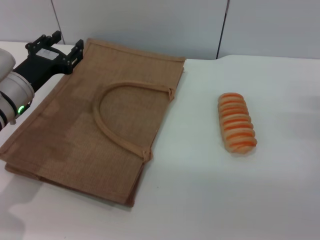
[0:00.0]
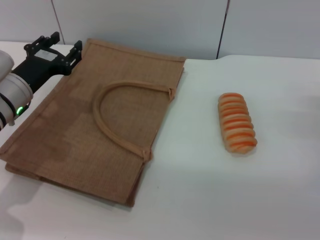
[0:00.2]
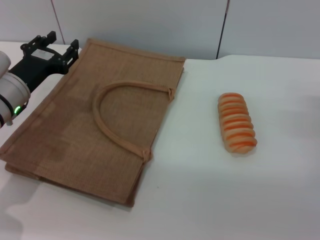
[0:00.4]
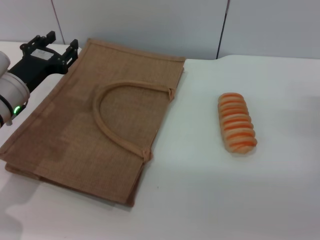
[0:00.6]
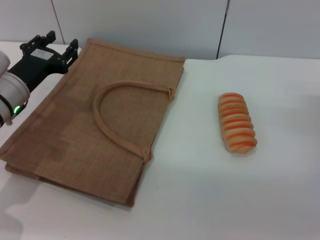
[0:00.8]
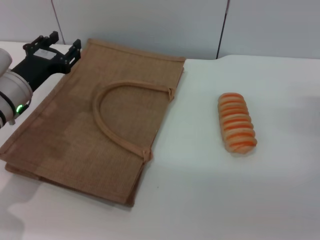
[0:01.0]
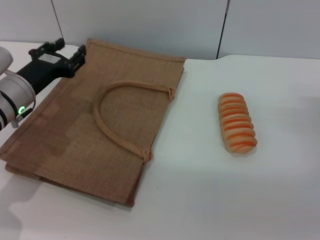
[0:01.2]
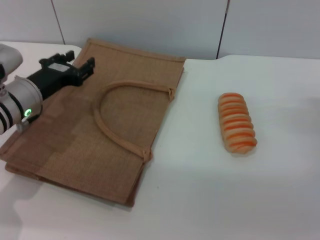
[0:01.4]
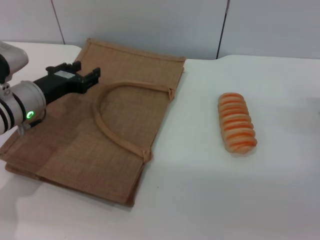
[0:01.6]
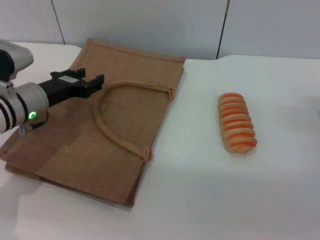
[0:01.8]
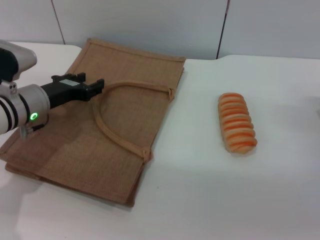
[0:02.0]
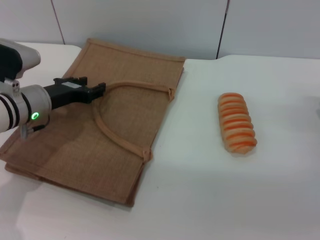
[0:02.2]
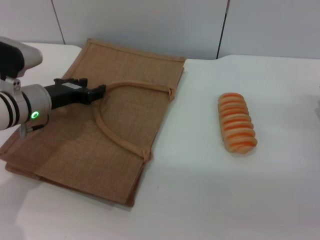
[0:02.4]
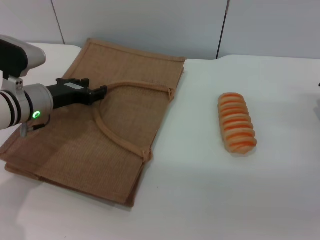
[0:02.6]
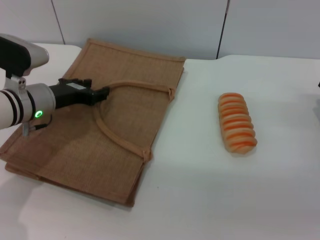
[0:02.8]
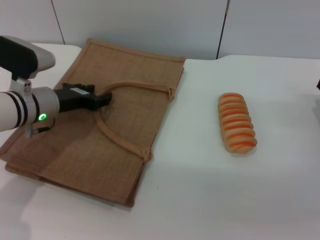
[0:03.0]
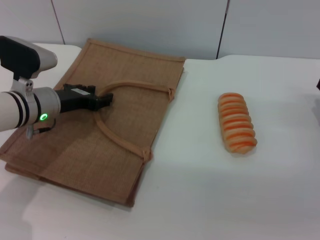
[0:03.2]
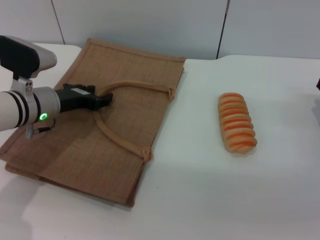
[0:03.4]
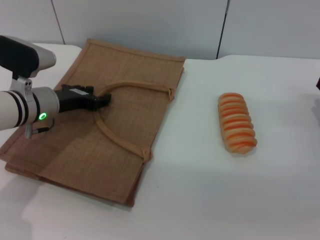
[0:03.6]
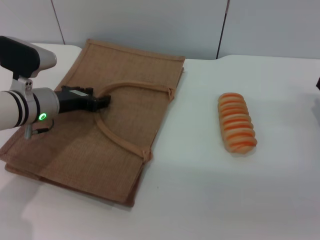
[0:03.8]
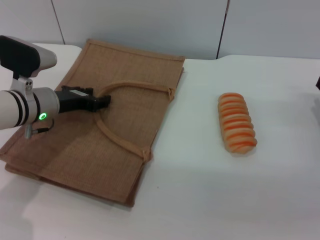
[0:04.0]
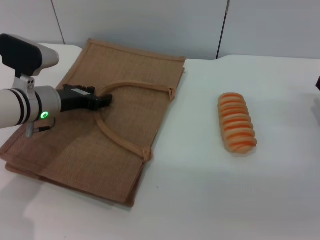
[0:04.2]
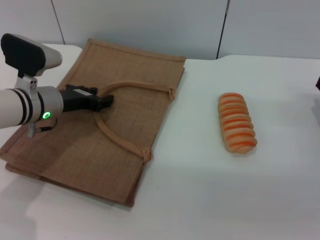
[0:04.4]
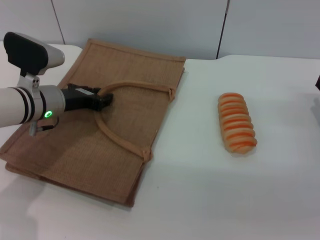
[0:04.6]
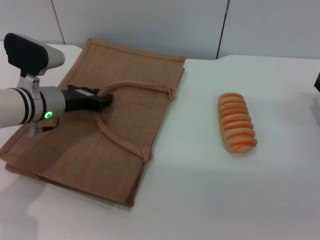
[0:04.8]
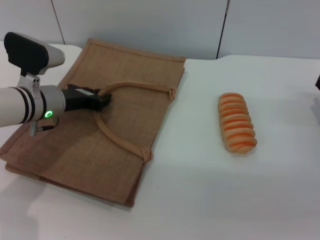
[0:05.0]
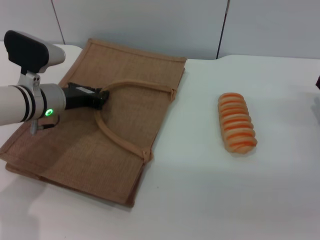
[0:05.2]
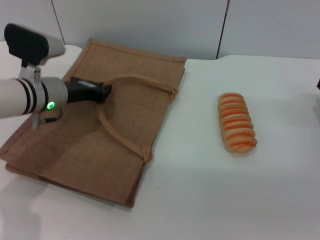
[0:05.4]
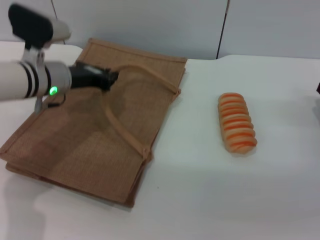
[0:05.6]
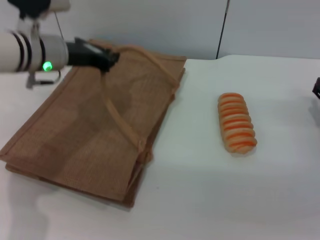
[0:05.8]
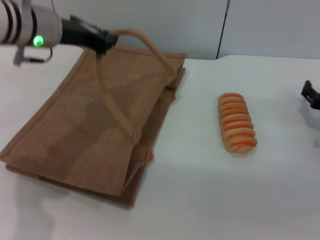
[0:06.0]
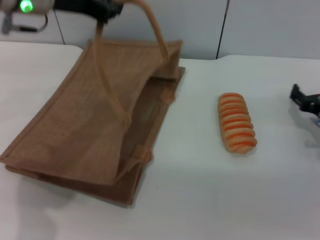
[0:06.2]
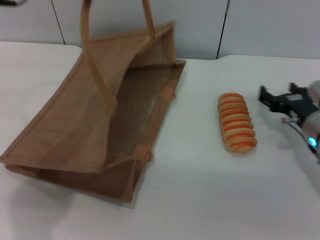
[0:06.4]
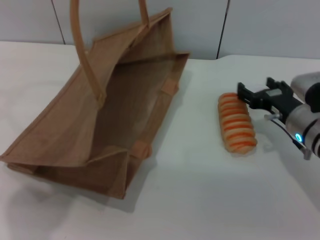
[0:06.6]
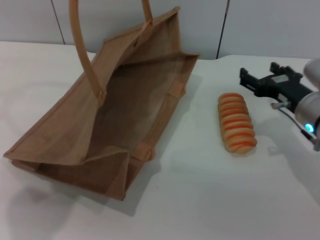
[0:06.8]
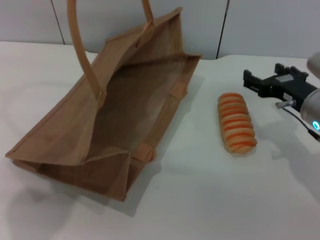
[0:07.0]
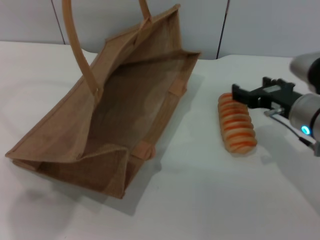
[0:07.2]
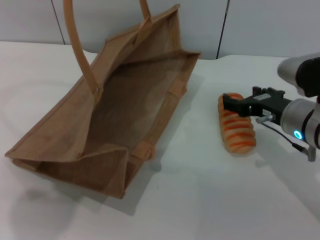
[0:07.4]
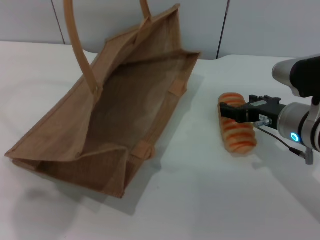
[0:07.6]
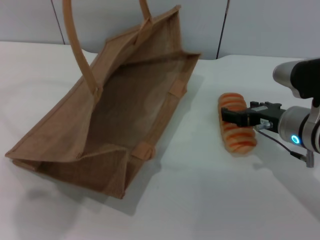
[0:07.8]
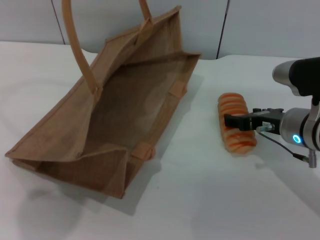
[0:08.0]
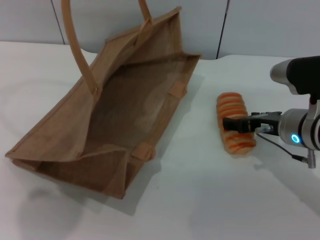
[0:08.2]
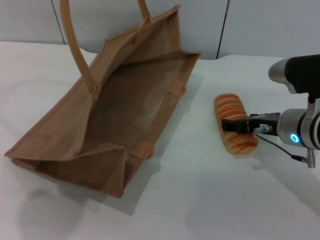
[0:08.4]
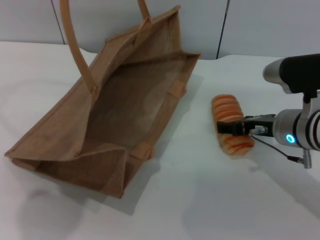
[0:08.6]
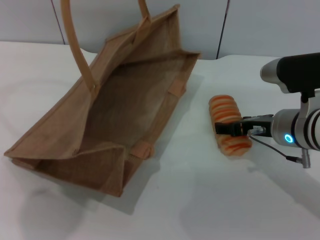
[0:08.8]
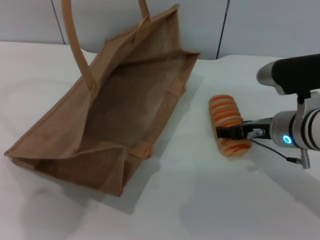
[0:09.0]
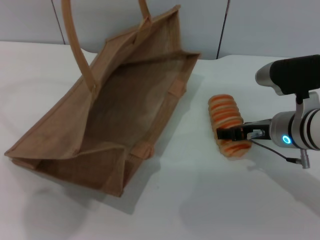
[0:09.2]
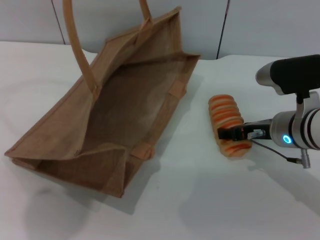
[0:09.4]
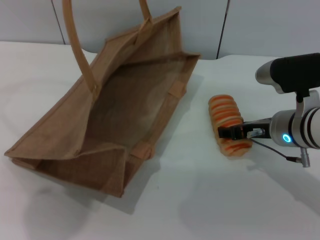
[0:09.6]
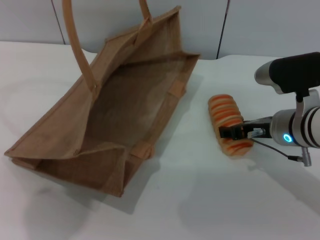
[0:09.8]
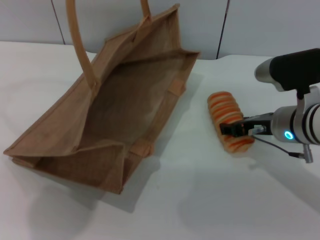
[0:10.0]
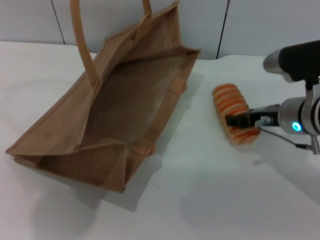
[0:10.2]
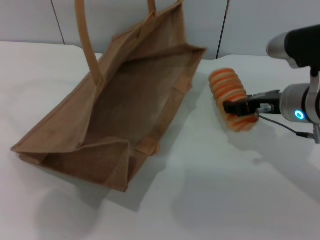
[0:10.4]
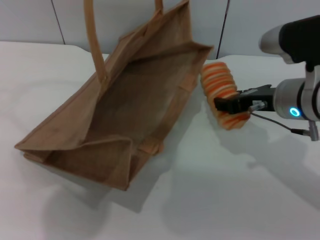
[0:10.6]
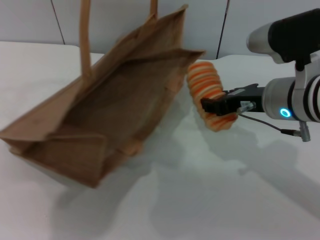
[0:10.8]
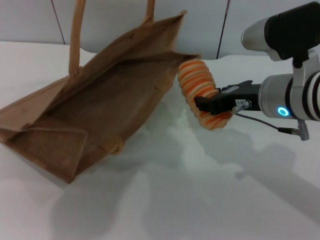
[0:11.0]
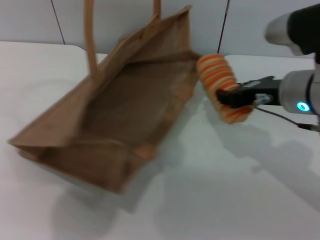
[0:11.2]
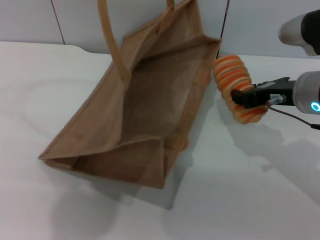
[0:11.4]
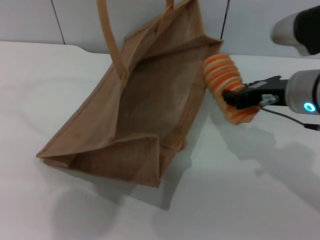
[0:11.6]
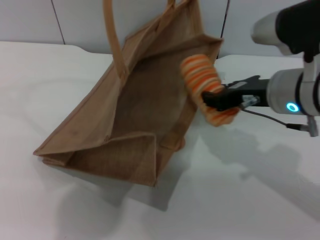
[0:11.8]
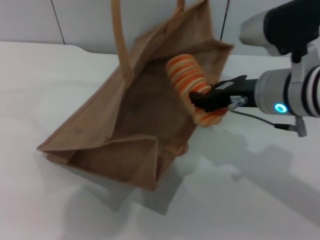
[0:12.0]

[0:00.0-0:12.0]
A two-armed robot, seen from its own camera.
Task of the whole recording: pick up the bread from the table and place it in the brown handbag.
Step, 0:00.0 to 0:05.4: Lift the woven bag with the left gripper to open it.
Step, 0:05.6 to 0:11.2: Pick up the bread with the right gripper.
0:00.0 to 0:01.6: The grippers make only small movements.
0:01.6 to 0:03.0: There are only small adjustments of the grippers.
0:03.0 to 0:04.4: Neither gripper changes place.
0:04.4 to 0:06.0: The left gripper shifts roughly 15 cm upward, and closes its fingers.
0:06.0 to 0:07.6: The right gripper travels to the left and upward by some 15 cm. The left gripper goes some 15 cm upward.
0:07.6 to 0:09.0: The grippers move only a little.
0:09.0 to 0:10.4: The right gripper closes its fingers.
0:10.4 to 0:12.0: The right gripper shifts by about 5 cm, and closes up.

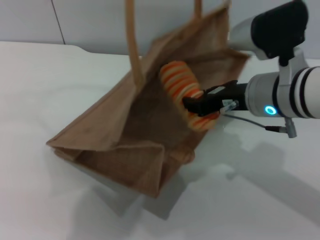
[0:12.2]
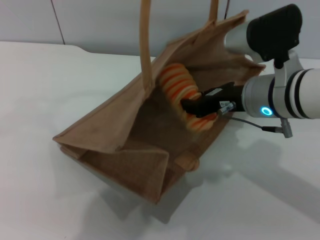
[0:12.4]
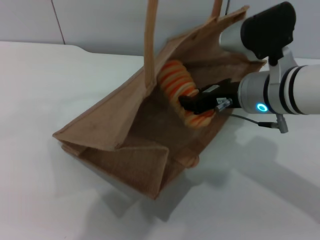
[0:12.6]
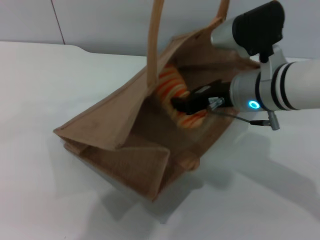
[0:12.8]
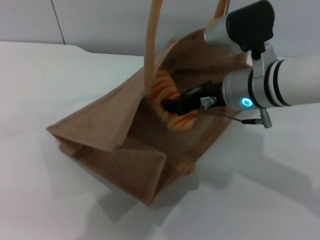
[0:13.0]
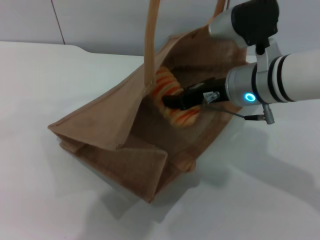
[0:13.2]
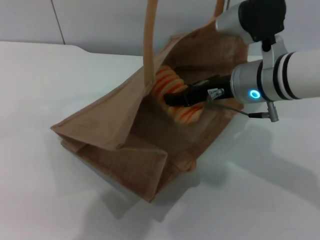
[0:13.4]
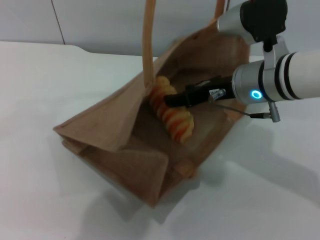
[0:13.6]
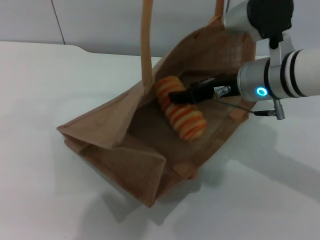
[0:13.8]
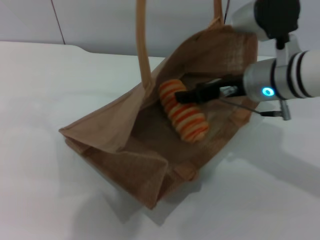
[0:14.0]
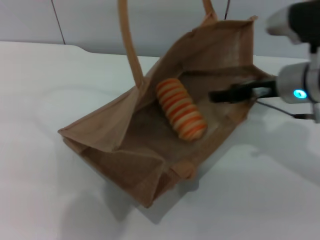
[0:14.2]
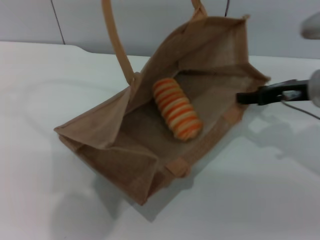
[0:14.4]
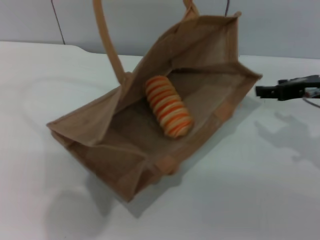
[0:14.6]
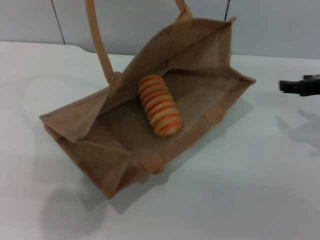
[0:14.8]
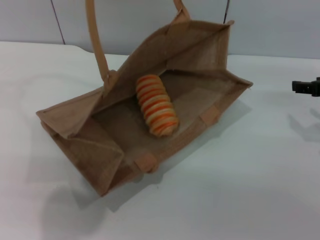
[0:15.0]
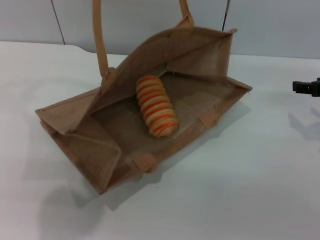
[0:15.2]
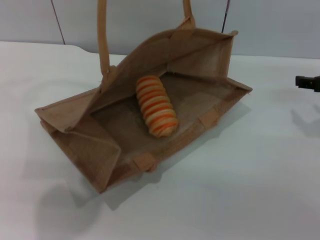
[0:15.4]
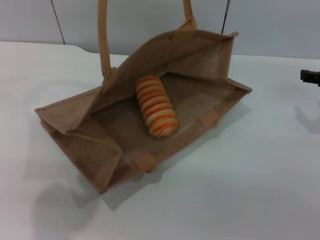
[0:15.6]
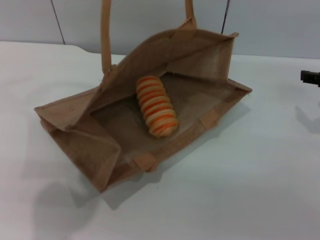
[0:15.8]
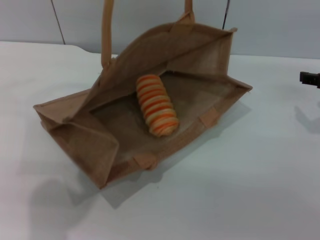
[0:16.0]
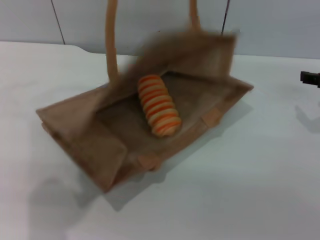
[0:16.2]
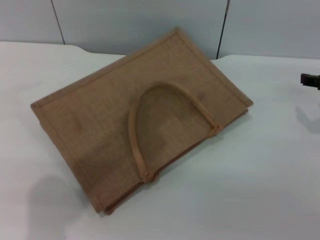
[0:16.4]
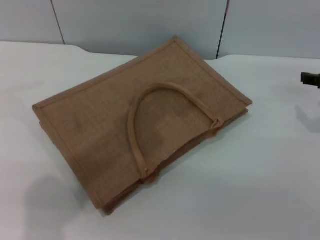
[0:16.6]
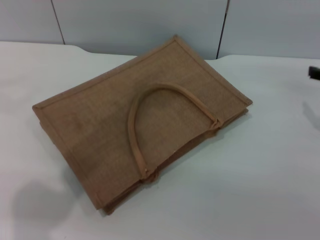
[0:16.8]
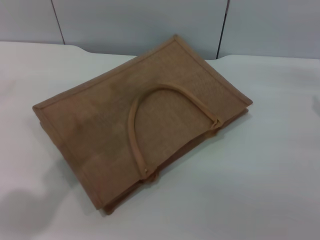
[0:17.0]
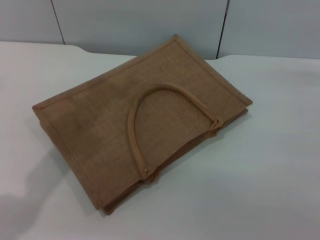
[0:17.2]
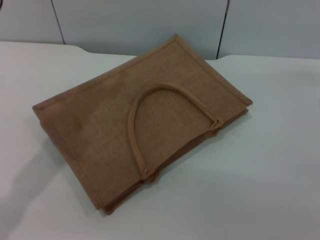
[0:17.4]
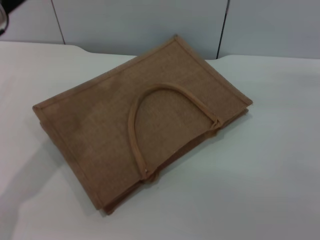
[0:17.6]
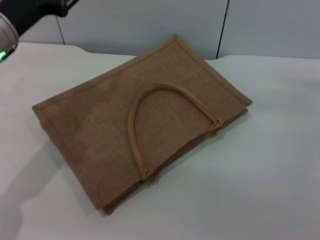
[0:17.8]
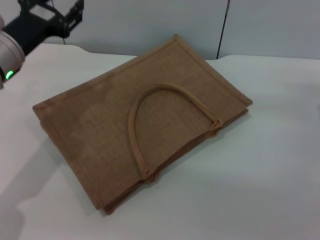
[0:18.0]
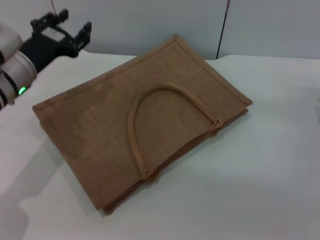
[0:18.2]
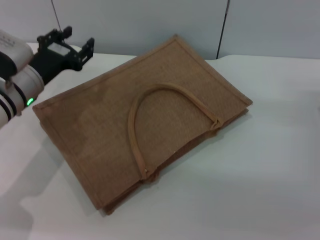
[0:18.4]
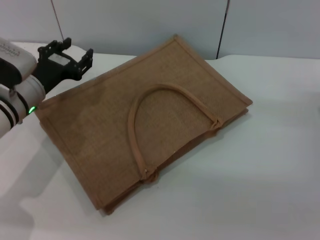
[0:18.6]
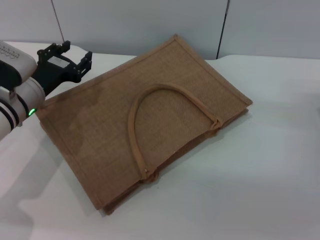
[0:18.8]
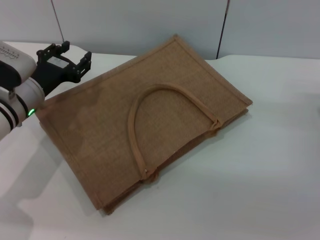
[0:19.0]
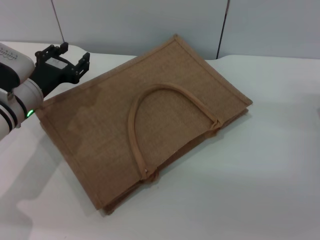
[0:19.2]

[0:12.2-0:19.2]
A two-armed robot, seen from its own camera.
Task of the whole recording: pick up the bread from the table and place it in the brown handbag.
Step, 0:12.2 to 0:14.6: Place the bread into the woven bag with the right gripper.
Step, 0:14.8 to 0:16.6: Lower the woven bag with the left gripper to close it.
0:12.2 to 0:13.6: The right gripper opens its fingers.
0:13.6 to 0:15.0: The right gripper moves to the right, some 20 cm, while the left gripper moves to the left, approximately 10 cm.
0:15.0 to 0:16.4: The left gripper opens up.
0:16.4 to 0:17.8: The right gripper shifts some 5 cm downward, while the left gripper travels downward and to the left by about 20 cm.
0:17.8 to 0:19.2: The left gripper goes some 10 cm downward.
